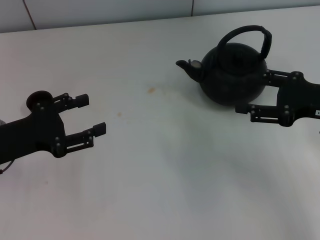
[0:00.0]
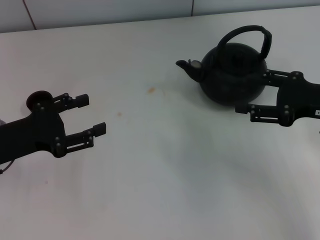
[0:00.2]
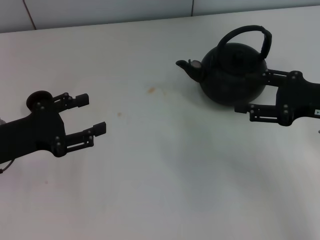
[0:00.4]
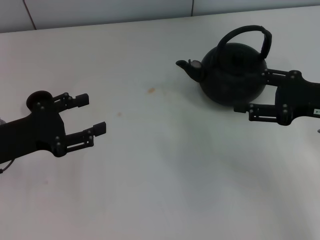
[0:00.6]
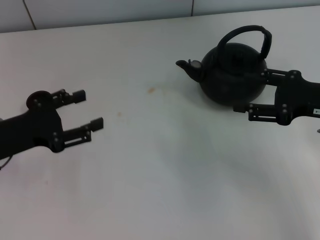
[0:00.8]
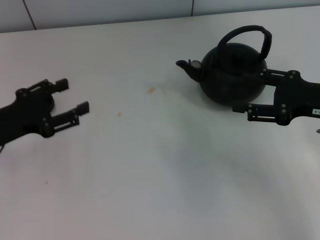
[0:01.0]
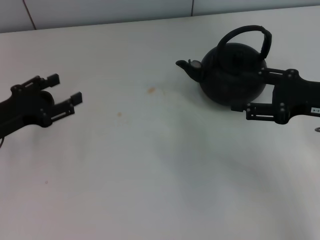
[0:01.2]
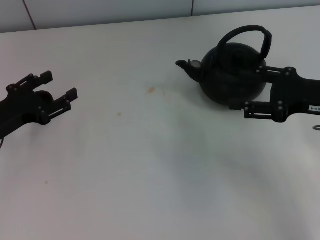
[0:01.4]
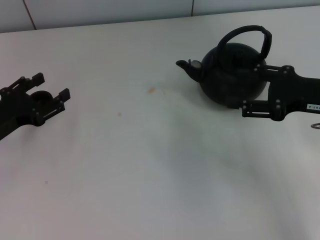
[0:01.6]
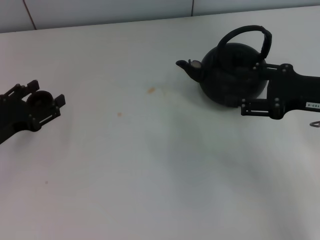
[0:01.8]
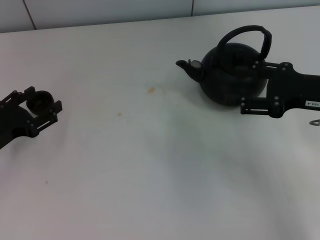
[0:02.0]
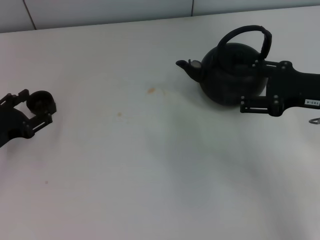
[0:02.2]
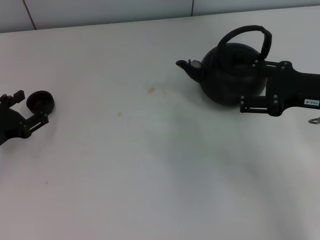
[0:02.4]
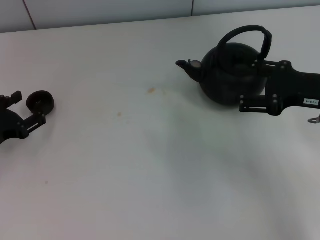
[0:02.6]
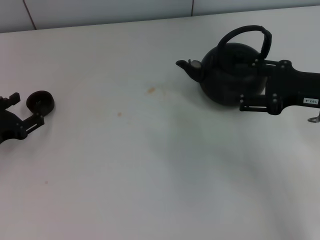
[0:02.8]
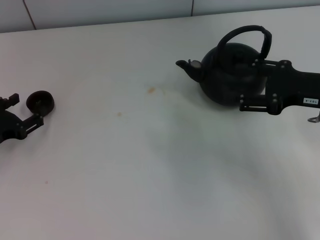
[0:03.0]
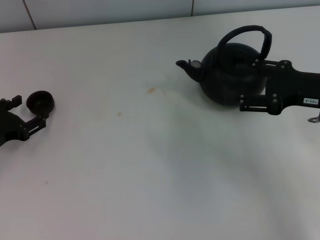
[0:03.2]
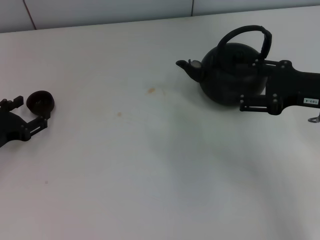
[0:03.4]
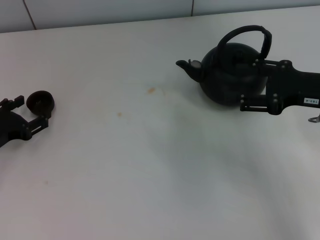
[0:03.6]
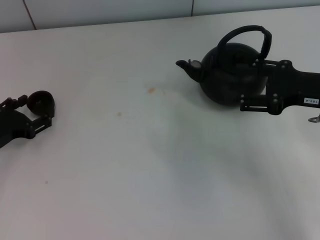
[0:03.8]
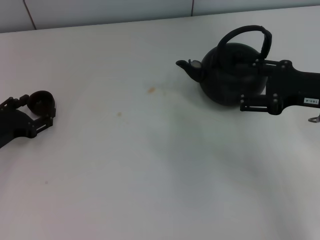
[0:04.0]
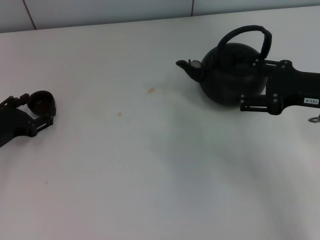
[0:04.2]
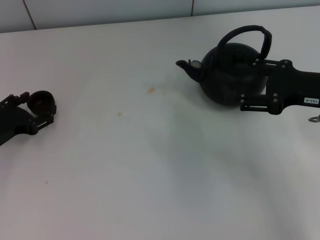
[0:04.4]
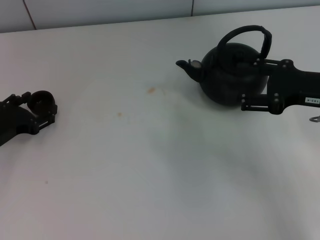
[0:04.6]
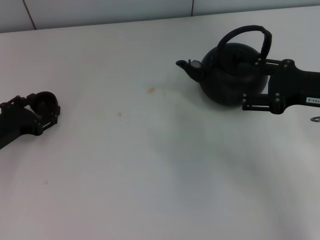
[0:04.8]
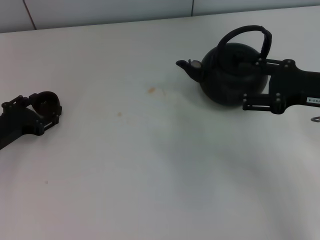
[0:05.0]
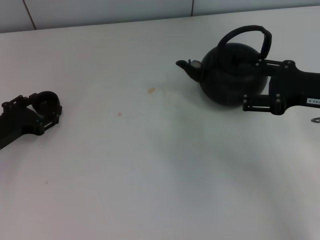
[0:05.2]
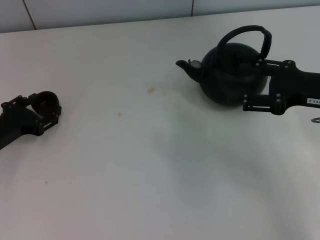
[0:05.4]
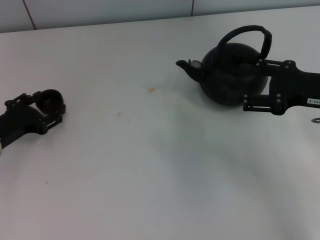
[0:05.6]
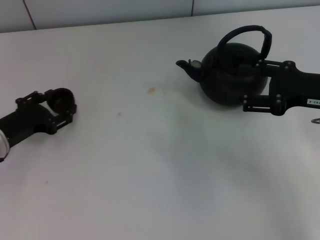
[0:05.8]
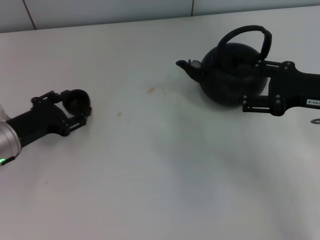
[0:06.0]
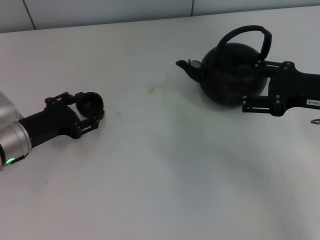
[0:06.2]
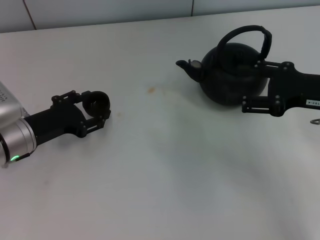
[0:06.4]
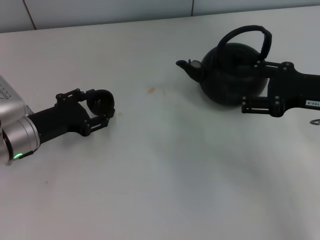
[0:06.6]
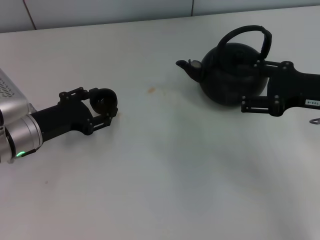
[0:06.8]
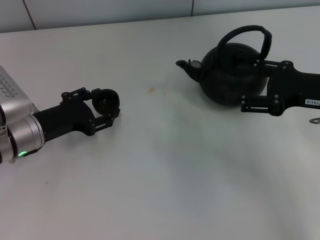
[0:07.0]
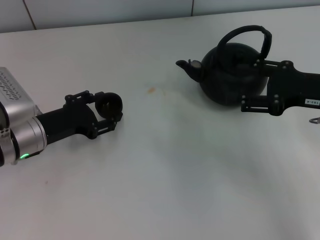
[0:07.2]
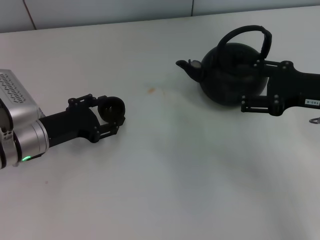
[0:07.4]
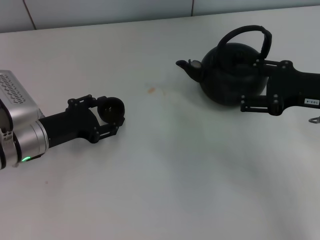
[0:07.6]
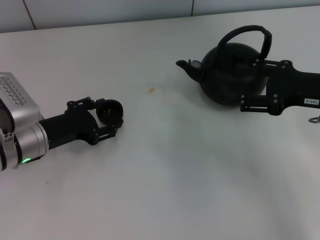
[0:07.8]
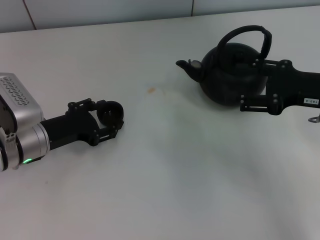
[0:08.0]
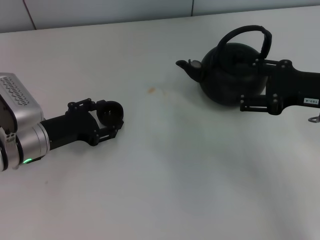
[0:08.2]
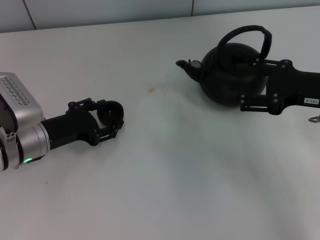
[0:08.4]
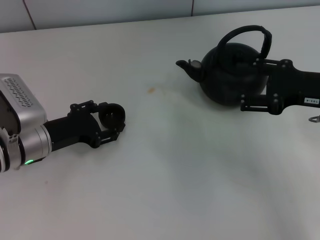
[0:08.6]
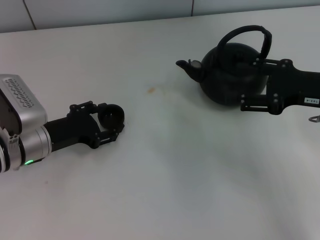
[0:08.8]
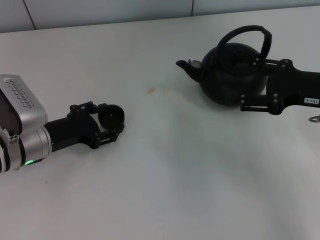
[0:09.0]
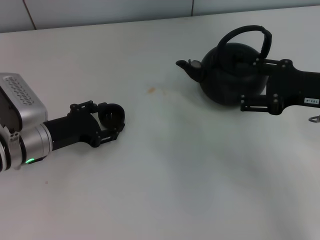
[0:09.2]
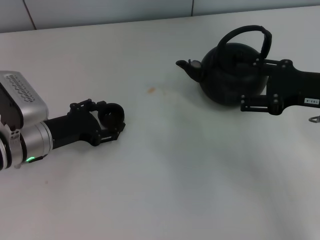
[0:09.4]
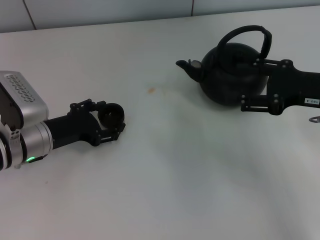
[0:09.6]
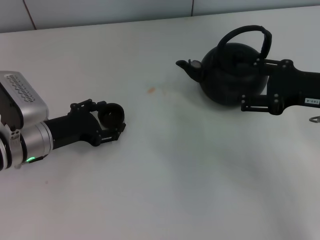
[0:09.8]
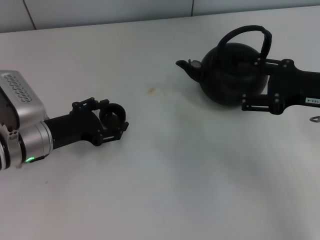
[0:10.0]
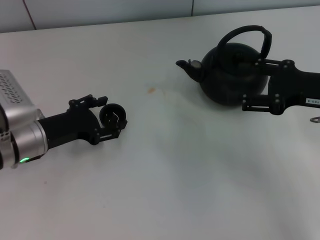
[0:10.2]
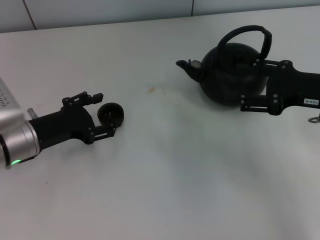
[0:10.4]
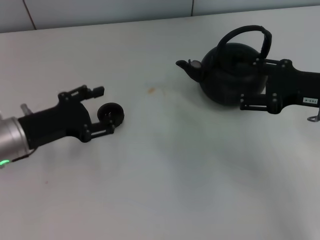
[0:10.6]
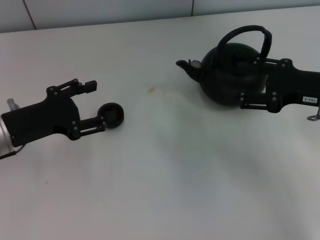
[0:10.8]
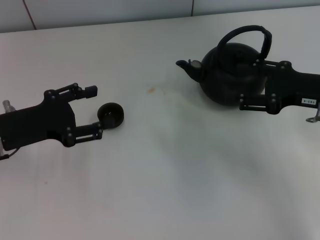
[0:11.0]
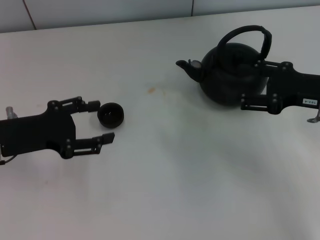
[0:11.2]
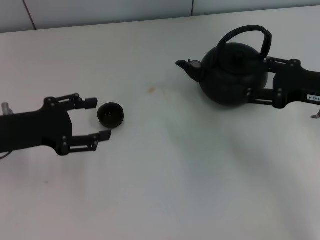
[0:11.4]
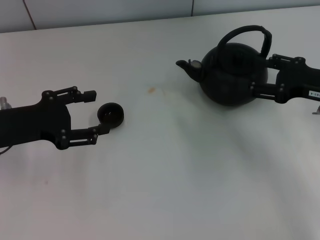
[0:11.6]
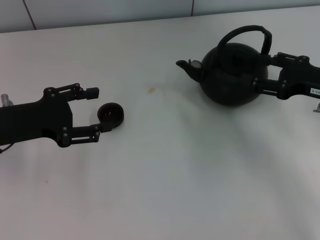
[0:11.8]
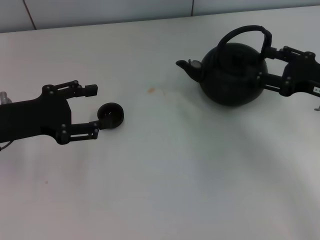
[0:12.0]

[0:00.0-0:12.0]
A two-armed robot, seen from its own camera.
Task of the whole recording: Grasp the handle of the teapot with one hand and pour tea into the teacup.
Step, 0:00.0 to 0:05.6: Pick up the teacup with the left gripper.
Step, 0:05.8 to 0:10.6: Place the teacup in the center of view with the left gripper.
0:01.6 to 0:06.0: The grippers move only a little.
0:06.0 to 0:07.6: There are only small adjustments of the grippers.
0:07.6 to 0:09.0: Neither gripper changes place.
0:09.0 to 0:10.4: The grippers move only a little.
0:10.4 to 0:12.0: The left gripper moves upward, roughly 5 cm.

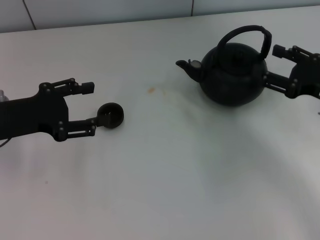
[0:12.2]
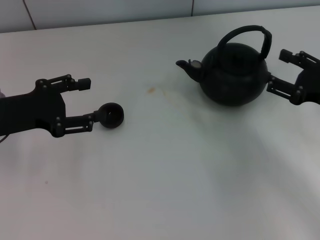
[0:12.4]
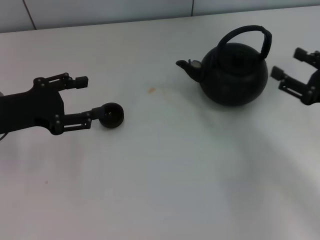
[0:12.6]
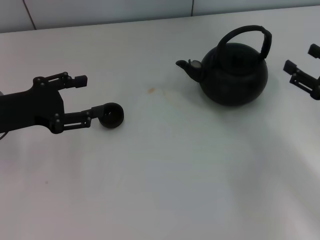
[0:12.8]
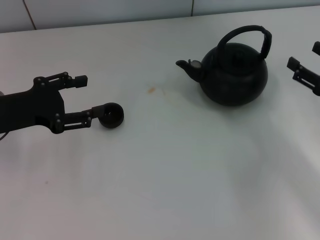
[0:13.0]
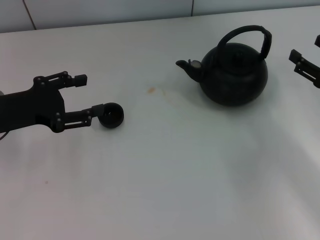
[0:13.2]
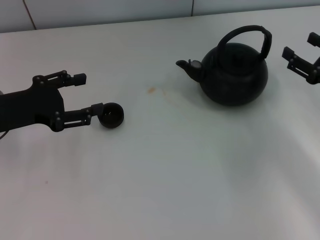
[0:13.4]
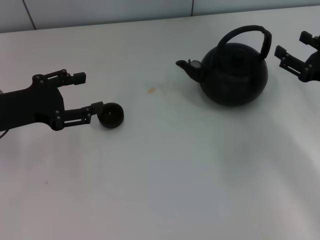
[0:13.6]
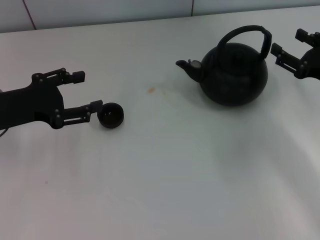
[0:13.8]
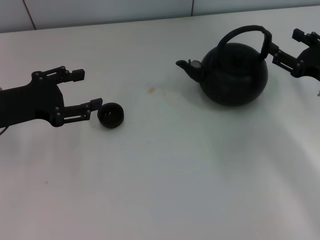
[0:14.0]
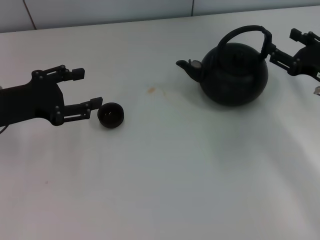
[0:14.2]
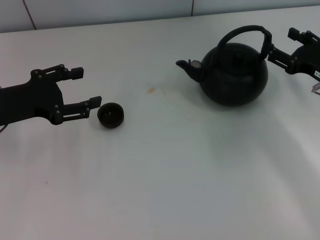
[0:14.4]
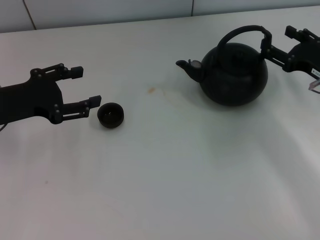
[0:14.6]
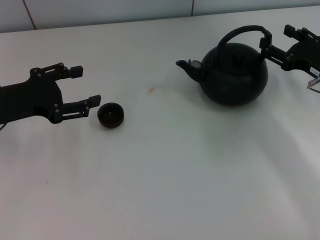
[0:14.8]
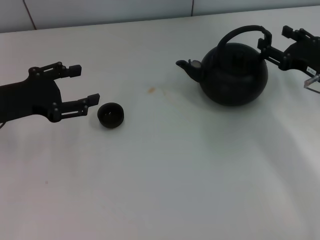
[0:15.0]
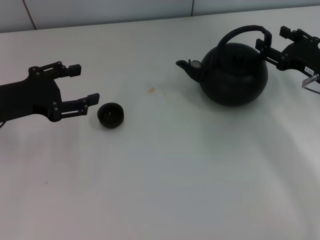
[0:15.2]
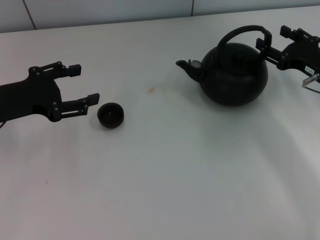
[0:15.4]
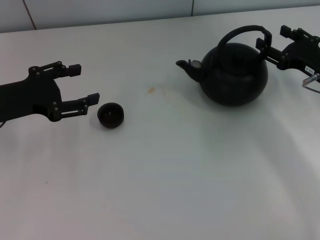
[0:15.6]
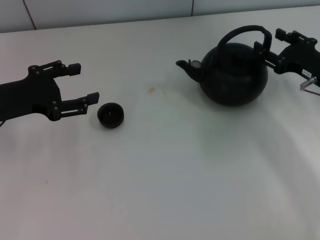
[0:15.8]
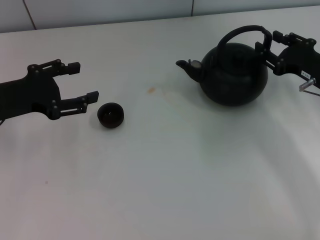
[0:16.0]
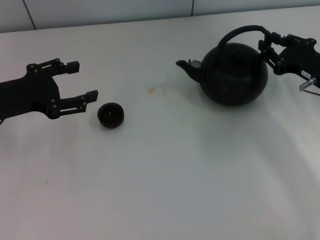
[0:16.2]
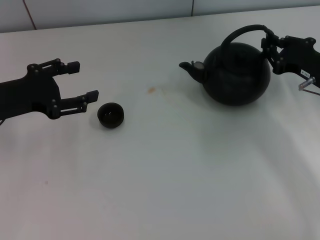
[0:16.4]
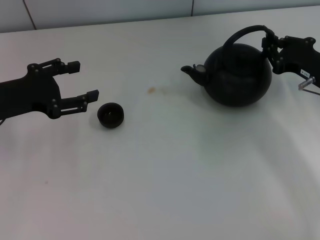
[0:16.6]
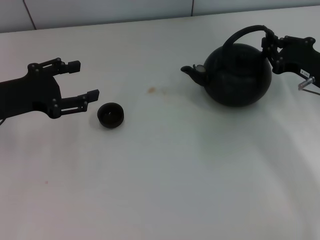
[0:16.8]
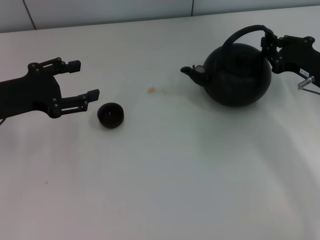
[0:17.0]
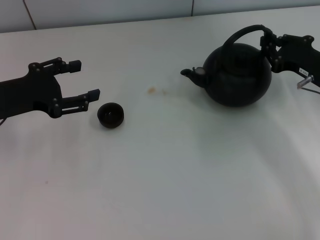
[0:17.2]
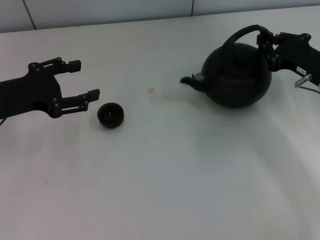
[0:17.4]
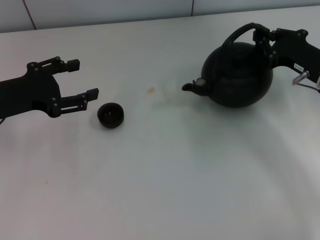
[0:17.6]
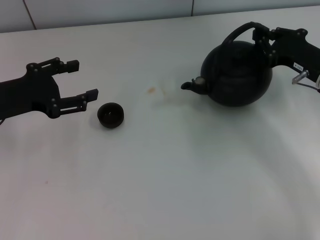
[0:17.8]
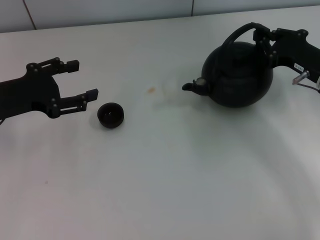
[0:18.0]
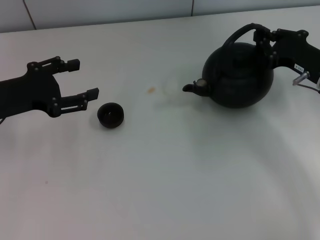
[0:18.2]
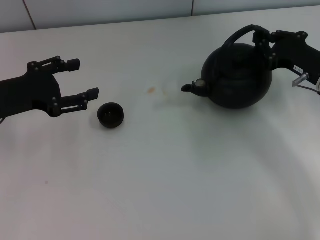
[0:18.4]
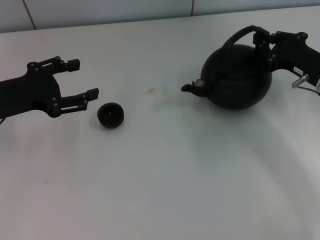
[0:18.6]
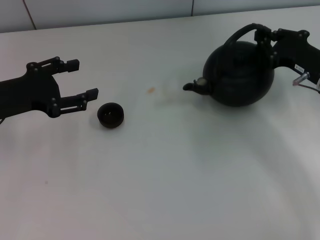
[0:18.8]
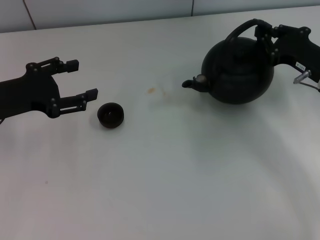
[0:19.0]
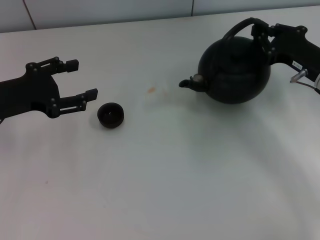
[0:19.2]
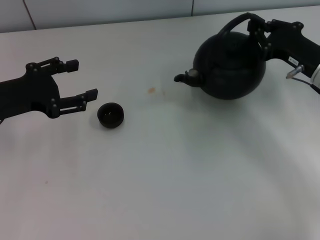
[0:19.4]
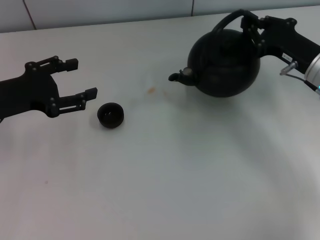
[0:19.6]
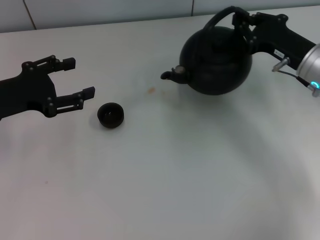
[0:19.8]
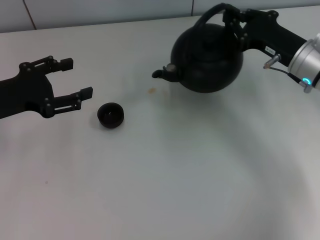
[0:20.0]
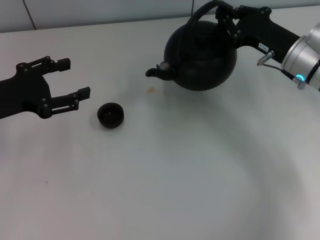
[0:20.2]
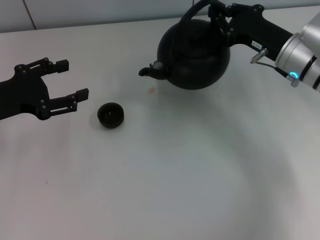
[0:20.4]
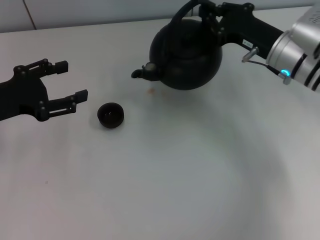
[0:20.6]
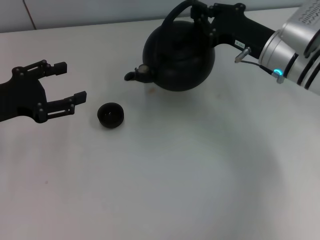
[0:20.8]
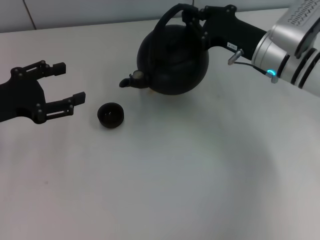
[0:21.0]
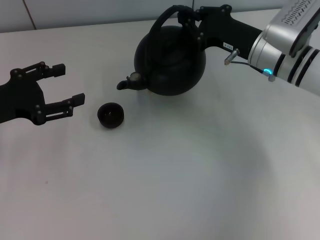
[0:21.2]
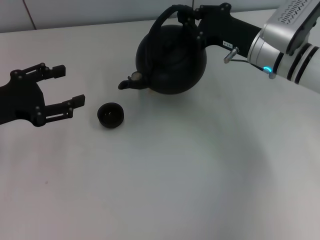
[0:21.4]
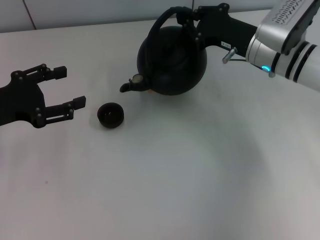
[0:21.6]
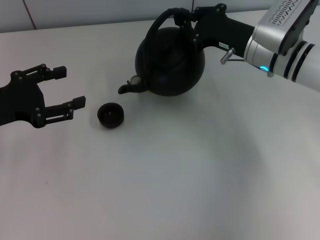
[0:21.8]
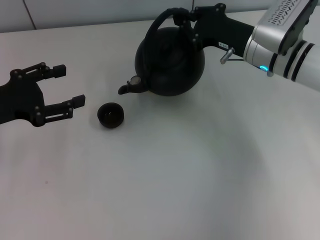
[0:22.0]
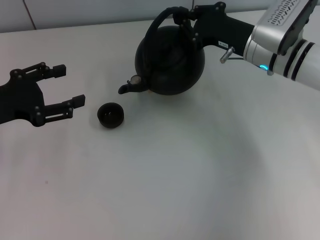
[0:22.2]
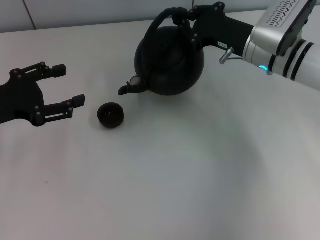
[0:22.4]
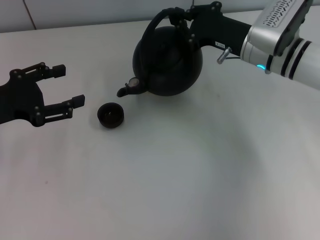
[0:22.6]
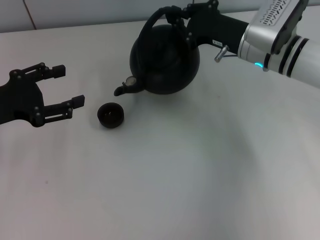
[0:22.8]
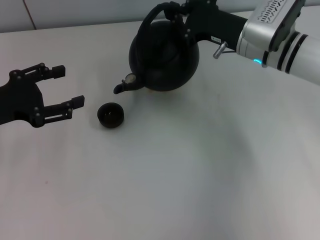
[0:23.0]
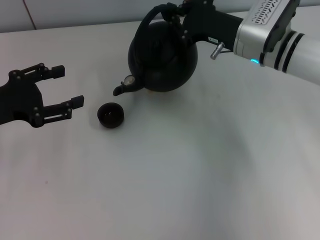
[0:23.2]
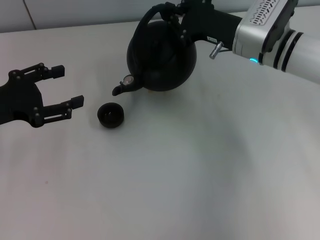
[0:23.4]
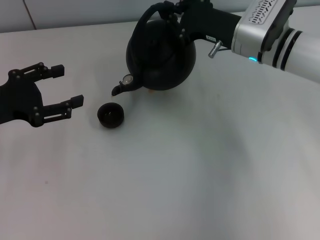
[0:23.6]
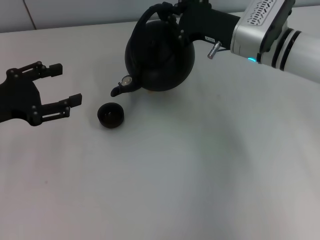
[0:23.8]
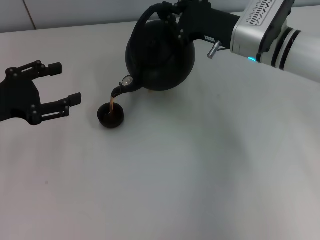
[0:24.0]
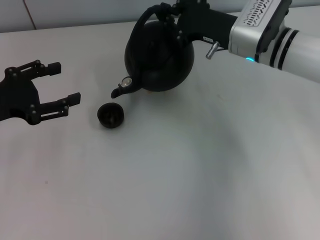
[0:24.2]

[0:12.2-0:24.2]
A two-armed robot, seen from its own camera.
Task of the whole recording: Grasp the handle of the teapot with one hand and pour tea into the teacup.
Step, 0:12.2 to 0:18.6: Pick up the teapot with the right gripper.
0:12.2 to 0:15.2: The grippers make only small movements.
0:15.2 to 0:16.6: The right gripper closes.
0:16.6 to 0:19.8: The grippers move only a little.
0:19.8 to 0:21.2: The right gripper goes roughly 5 cm to the left.
0:21.2 to 0:24.2: The grippers make only small movements.
